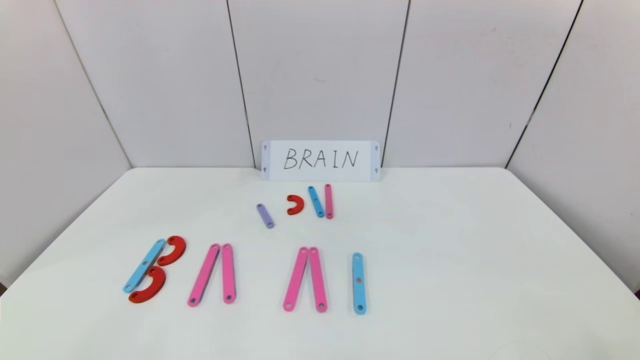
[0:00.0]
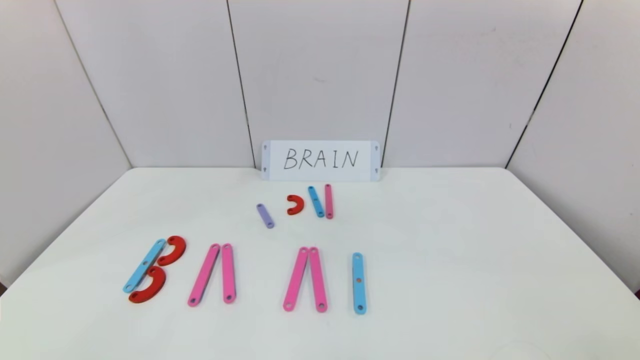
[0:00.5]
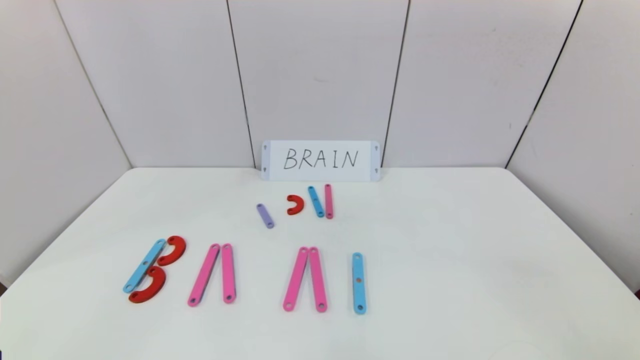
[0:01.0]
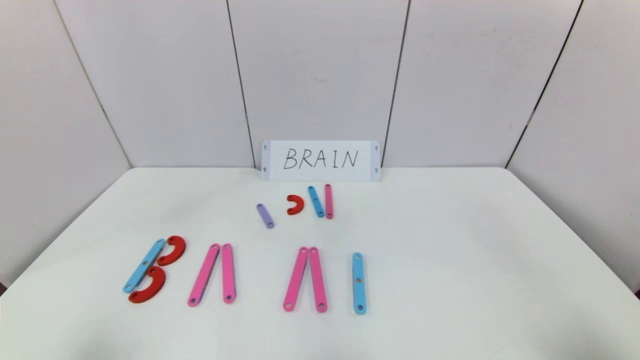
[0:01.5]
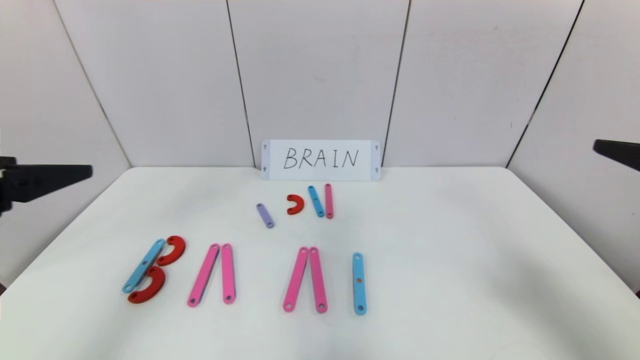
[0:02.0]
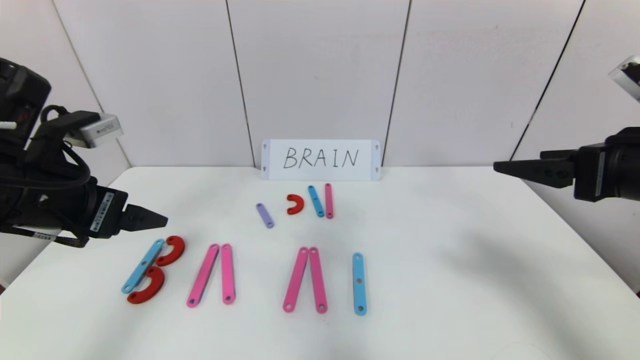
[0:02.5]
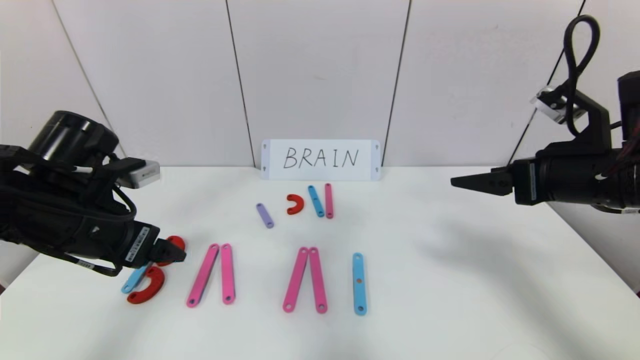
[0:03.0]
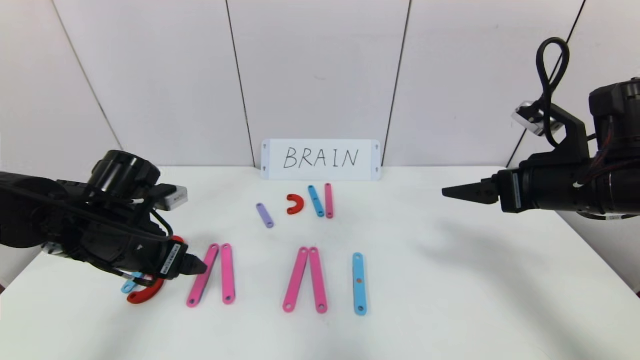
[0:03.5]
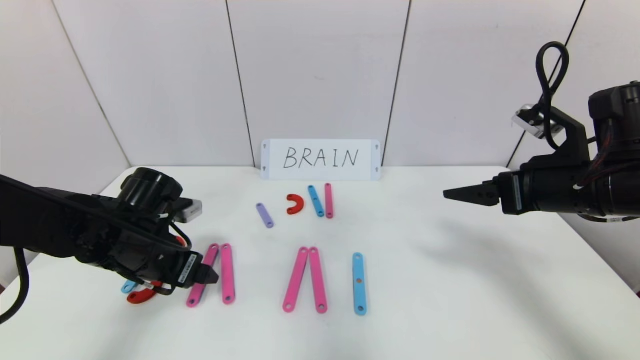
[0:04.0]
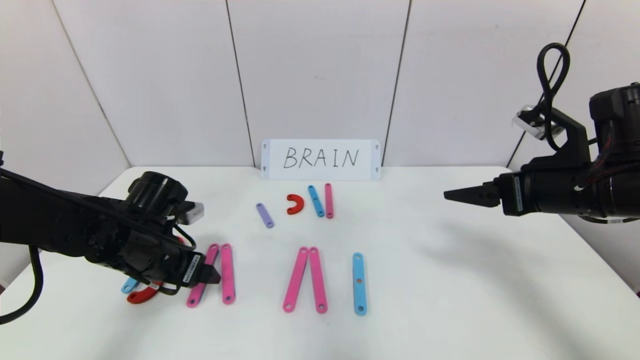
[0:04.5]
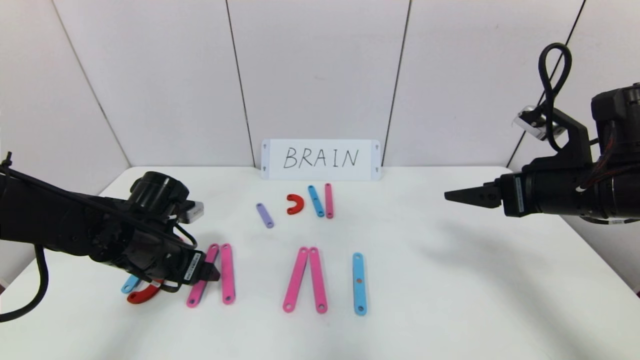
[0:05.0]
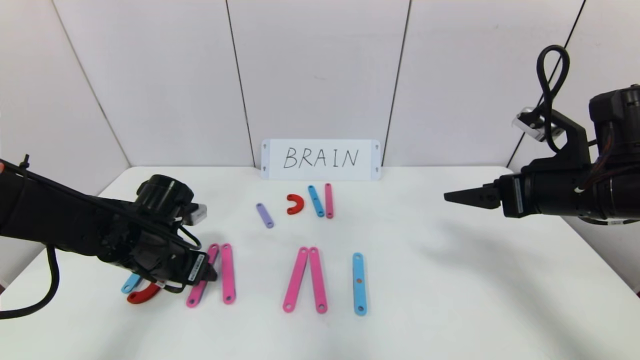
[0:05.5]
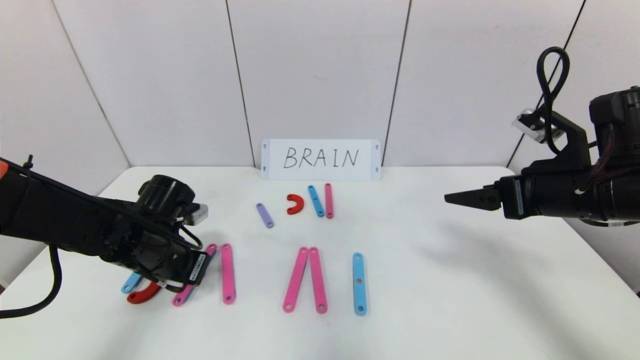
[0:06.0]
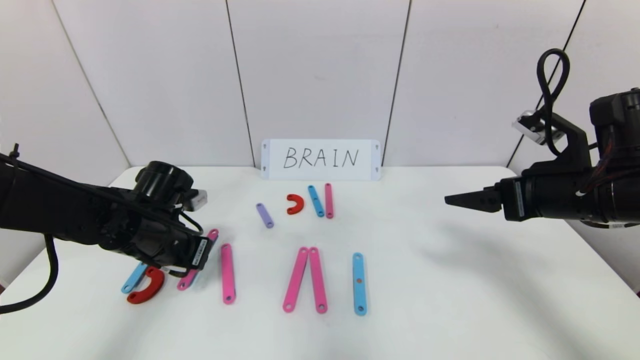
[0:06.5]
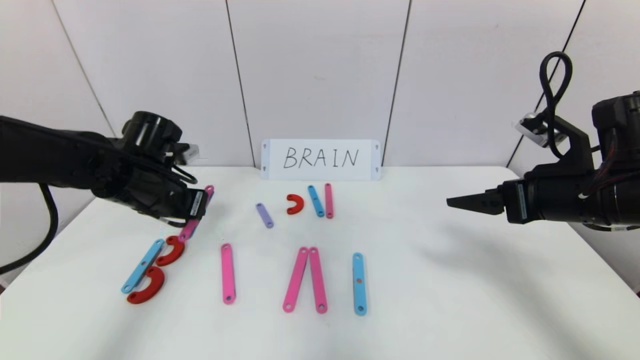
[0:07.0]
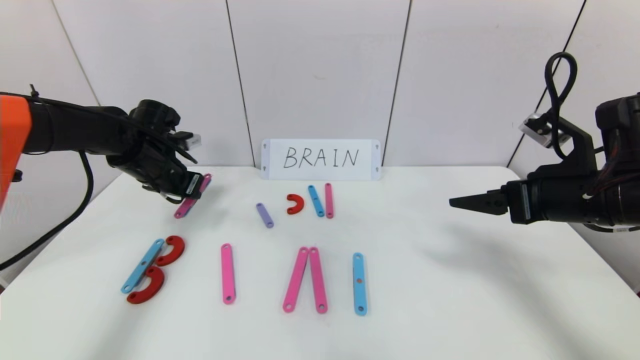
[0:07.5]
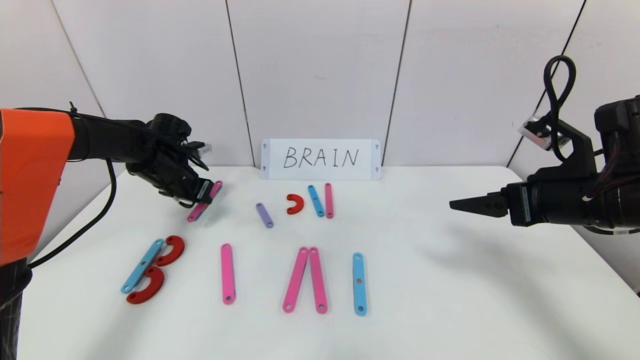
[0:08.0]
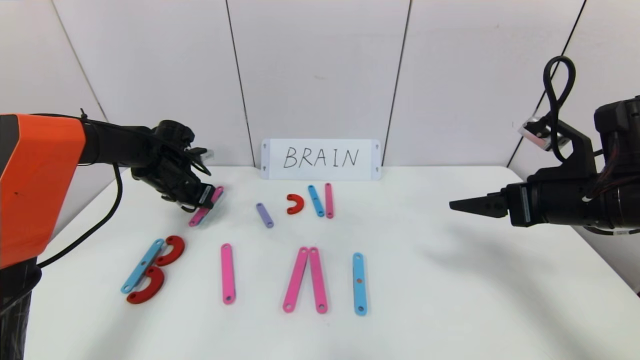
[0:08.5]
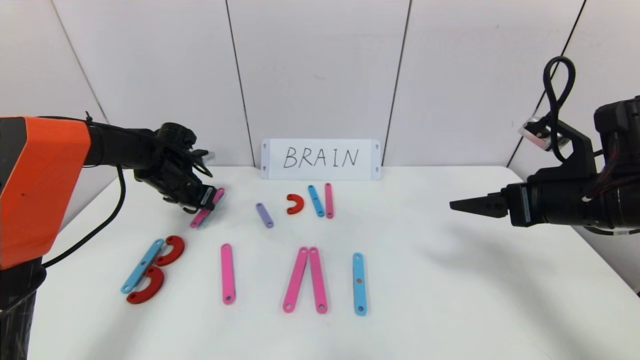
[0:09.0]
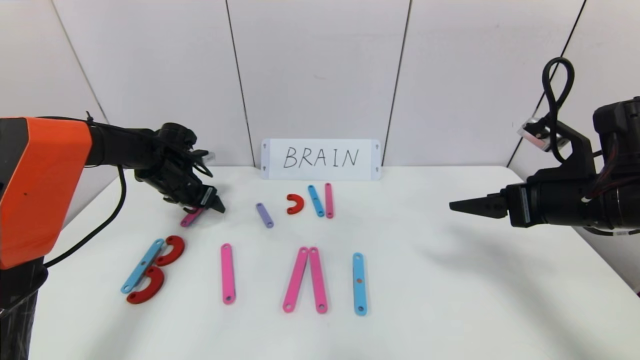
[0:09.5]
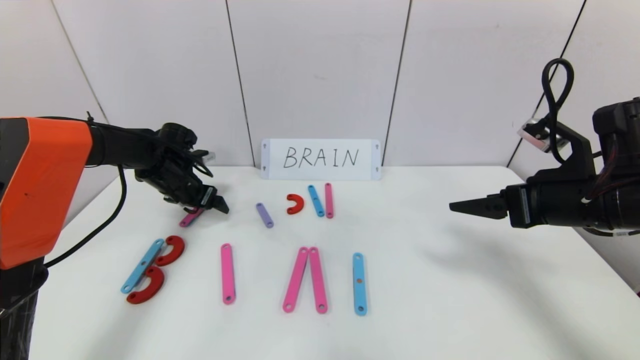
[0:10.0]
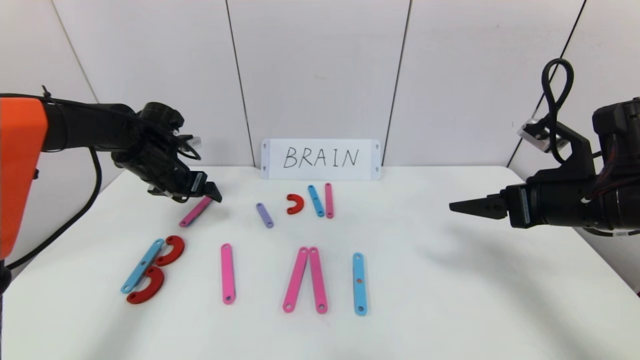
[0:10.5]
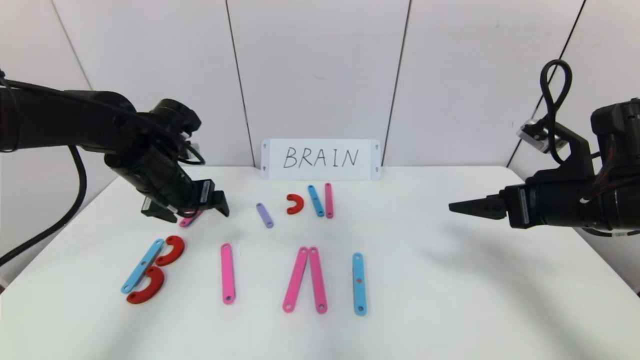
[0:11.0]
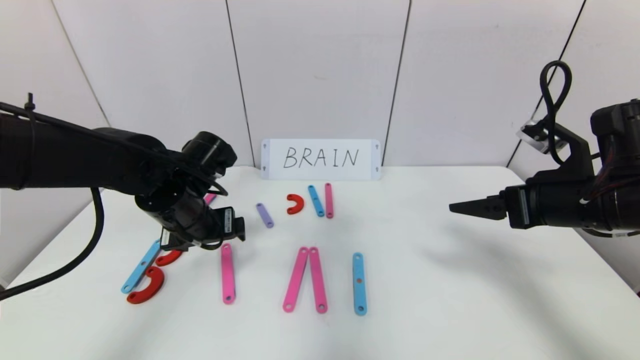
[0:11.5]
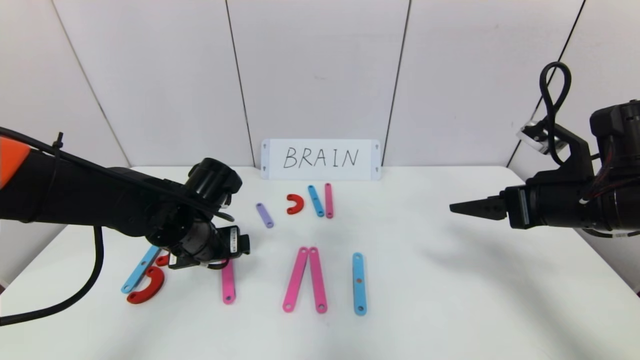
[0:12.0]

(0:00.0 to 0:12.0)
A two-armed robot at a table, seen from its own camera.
Task of the whole recording: rearrange the word baai as brain.
0:00.0 - 0:02.0: Both grippers move upward and forward, some 25 cm.
0:02.0 - 0:04.0: The right gripper is displaced forward and downward by approximately 15 cm; the left gripper goes approximately 25 cm downward and forward.
0:04.0 - 0:06.0: The left gripper closes its fingers.
0:06.0 - 0:08.0: The left gripper travels forward by roughly 15 cm.
0:08.0 - 0:10.0: The left gripper opens up.
0:10.0 - 0:12.0: The left gripper shifts roughly 20 cm backward and to the right.

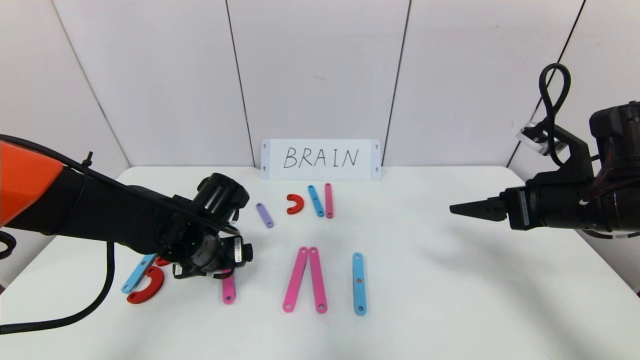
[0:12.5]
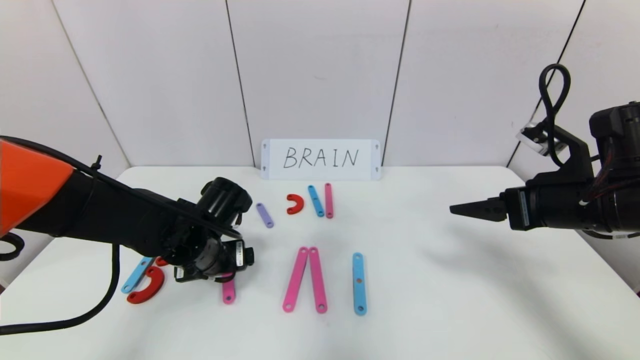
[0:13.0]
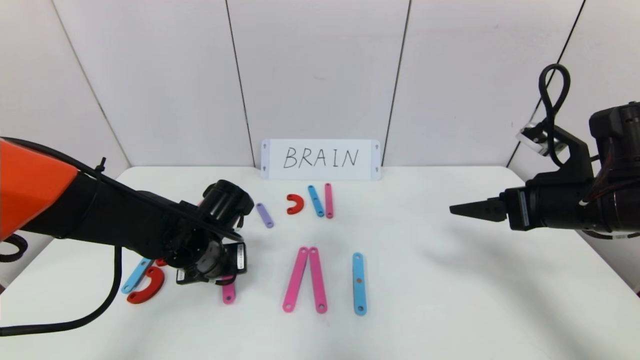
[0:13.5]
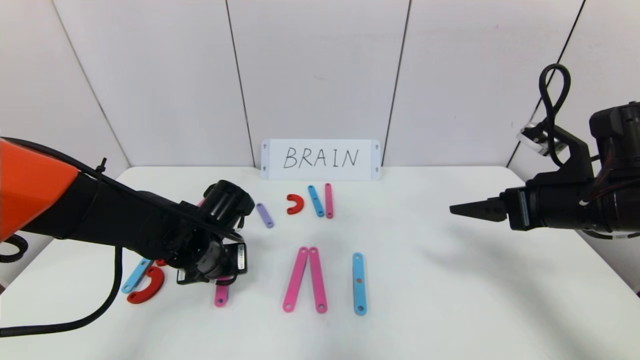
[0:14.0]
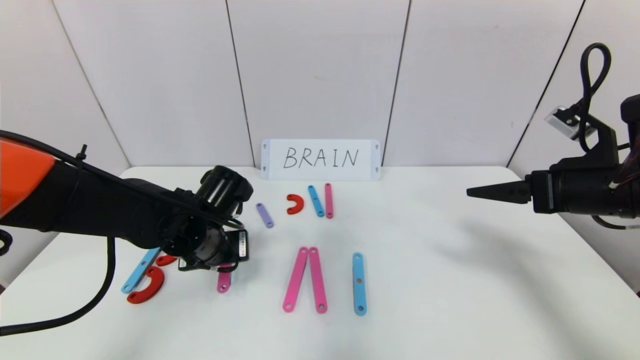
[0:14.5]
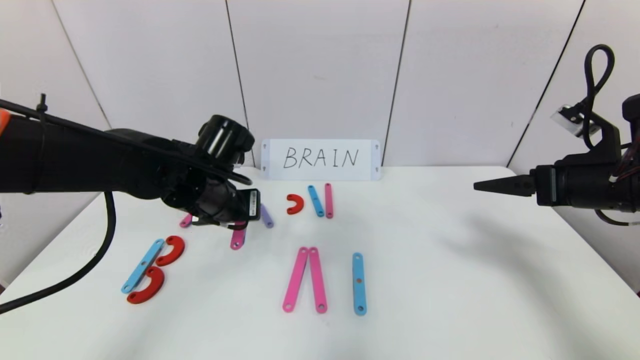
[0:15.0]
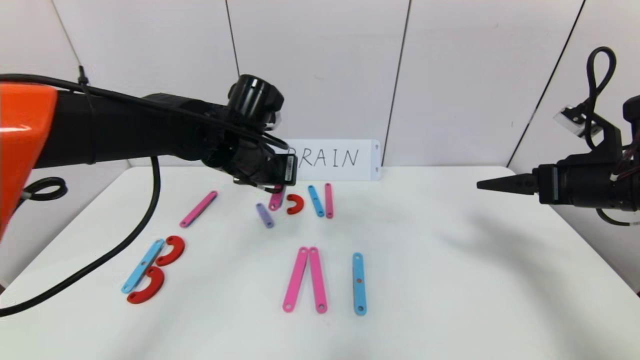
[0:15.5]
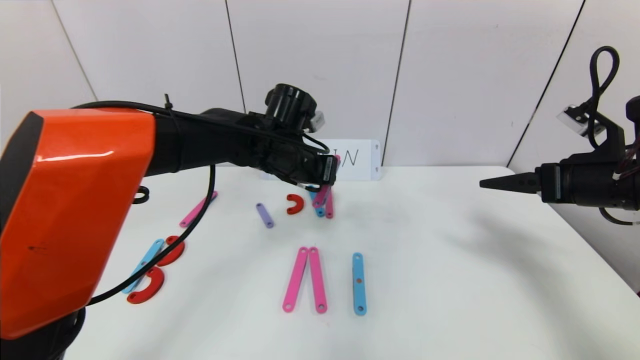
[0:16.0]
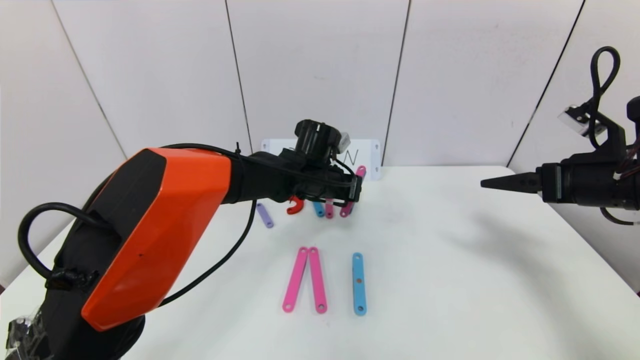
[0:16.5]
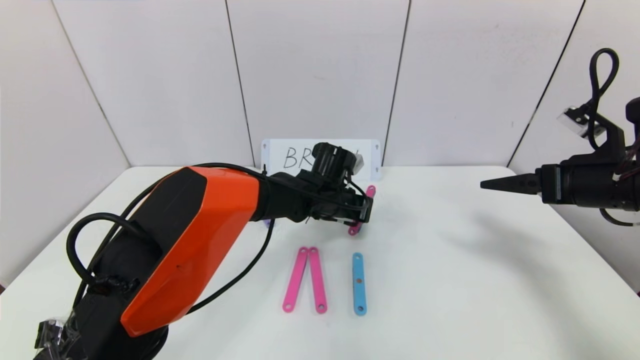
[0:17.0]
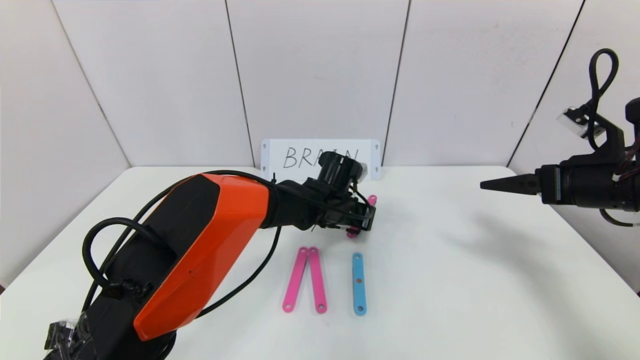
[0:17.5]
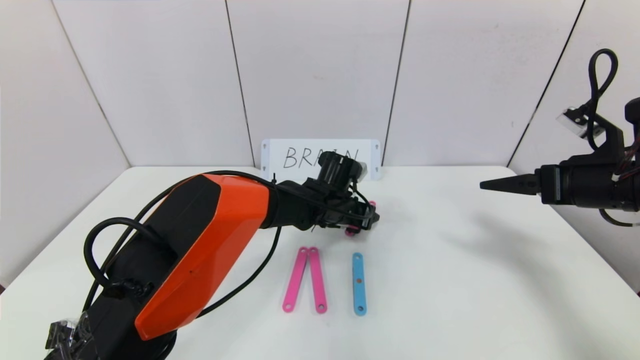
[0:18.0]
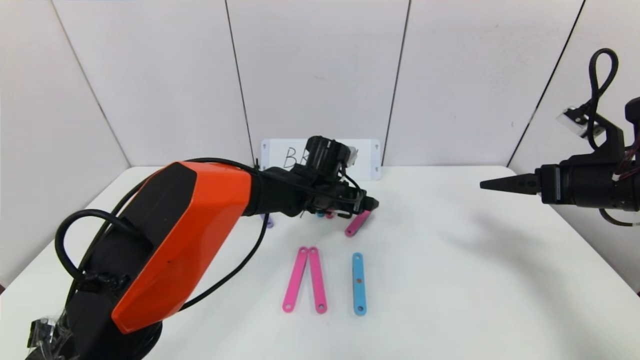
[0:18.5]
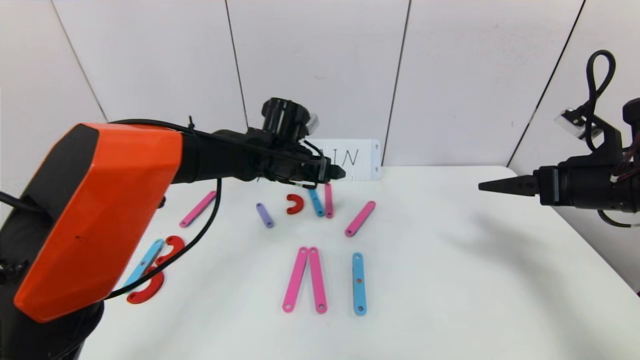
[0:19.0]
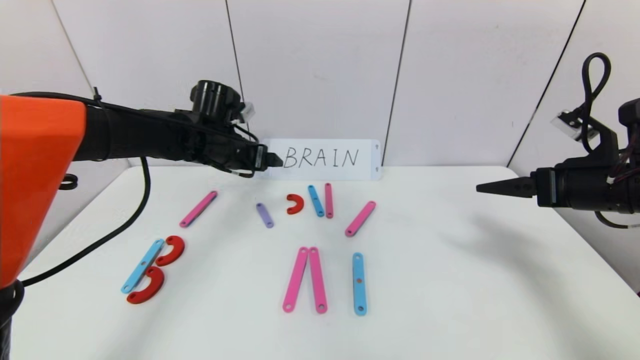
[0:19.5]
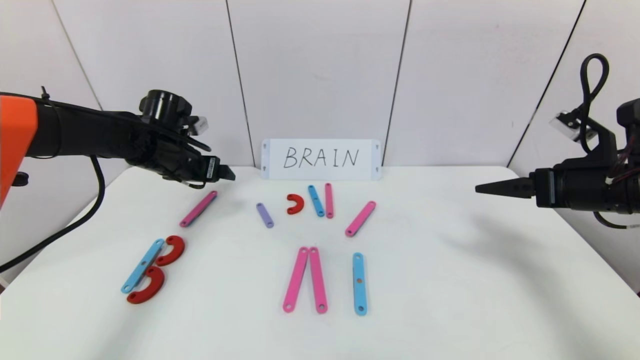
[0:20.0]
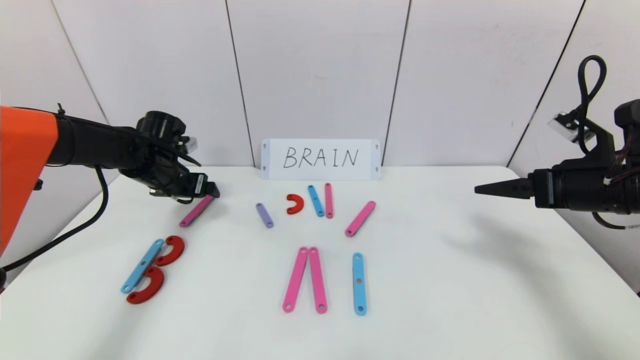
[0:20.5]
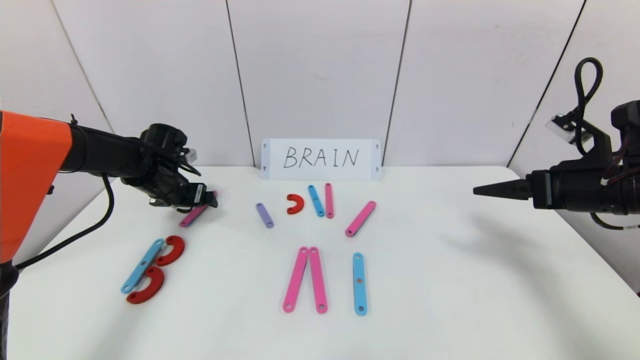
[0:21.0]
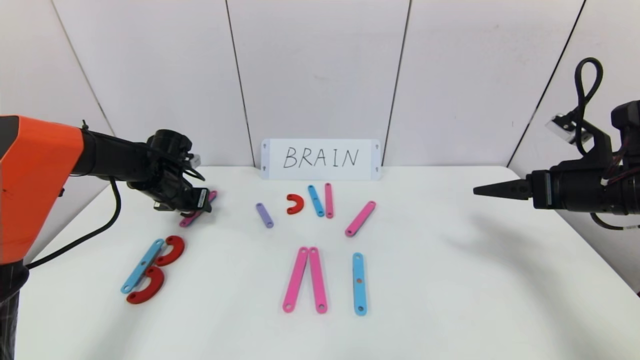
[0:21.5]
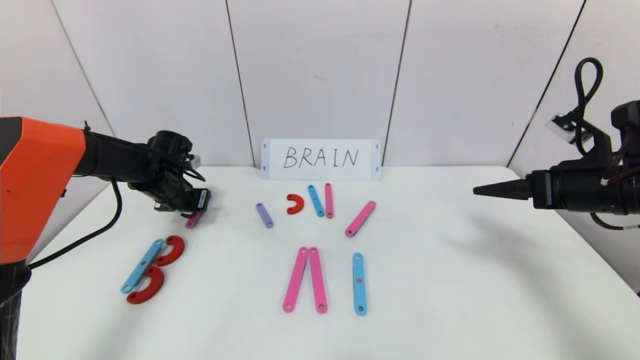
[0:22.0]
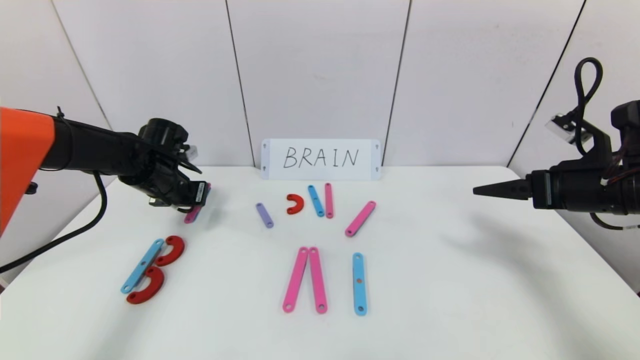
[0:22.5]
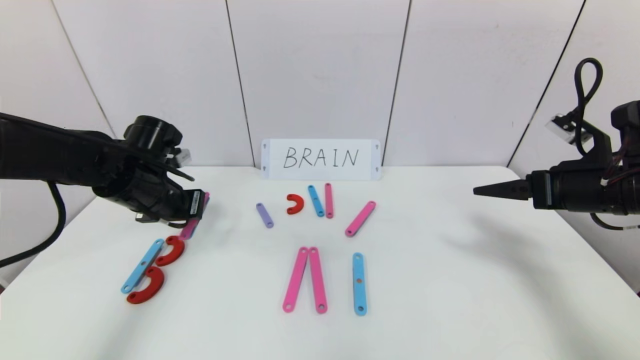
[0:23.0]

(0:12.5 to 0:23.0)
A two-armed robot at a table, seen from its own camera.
Task of the whole recording: rearrange the word baai as brain.
Step, 0:12.5 - 0:18.0: Disassemble the second character A.
0:12.5 - 0:14.5: The left gripper closes.
0:14.5 - 0:16.5: The left gripper goes roughly 20 cm to the right and forward.
0:16.5 - 0:19.0: The left gripper shifts some 5 cm to the left, and opens.
0:19.0 - 0:21.0: The left gripper goes roughly 20 cm to the left.
0:21.0 - 0:23.0: The left gripper shifts approximately 10 cm backward, and closes its fingers.
